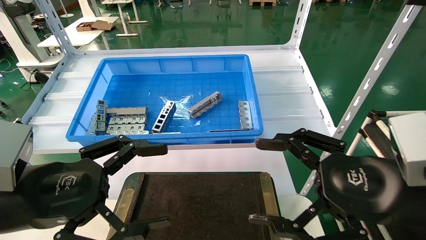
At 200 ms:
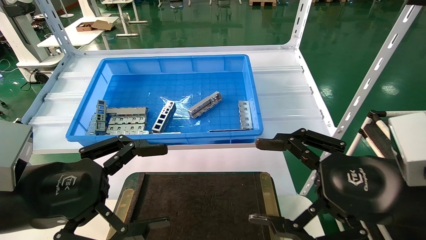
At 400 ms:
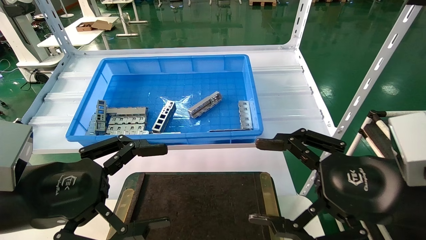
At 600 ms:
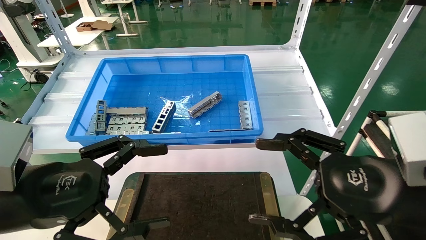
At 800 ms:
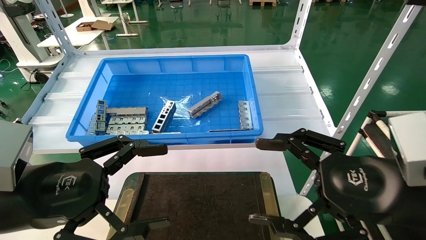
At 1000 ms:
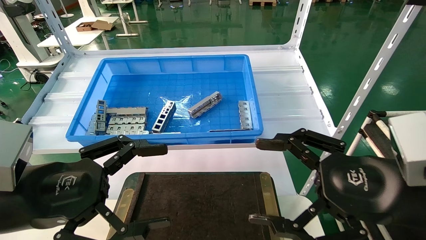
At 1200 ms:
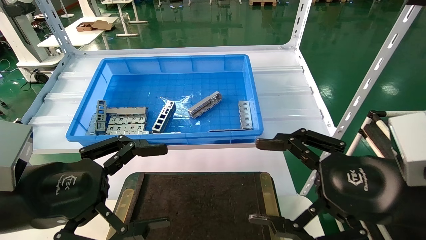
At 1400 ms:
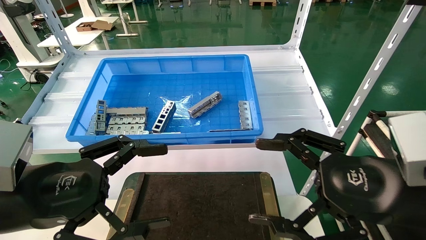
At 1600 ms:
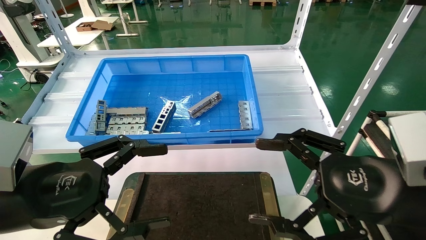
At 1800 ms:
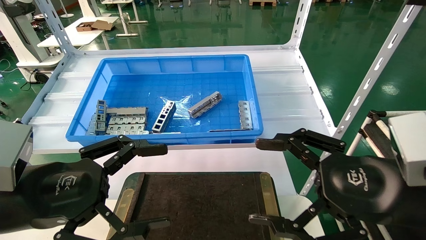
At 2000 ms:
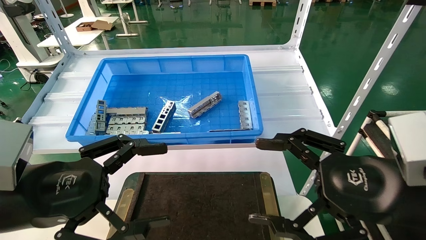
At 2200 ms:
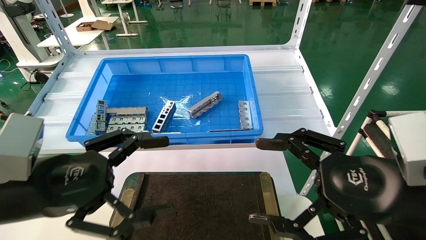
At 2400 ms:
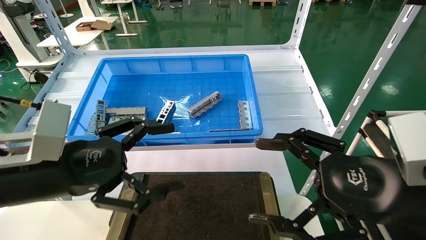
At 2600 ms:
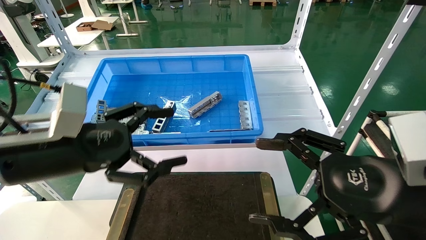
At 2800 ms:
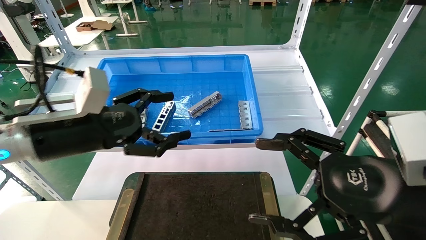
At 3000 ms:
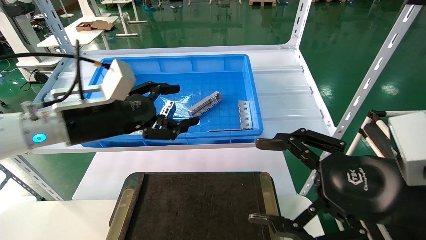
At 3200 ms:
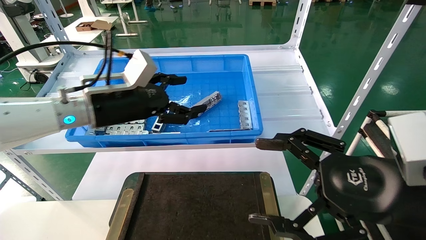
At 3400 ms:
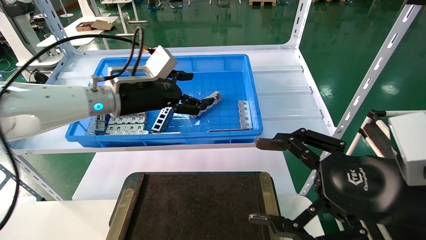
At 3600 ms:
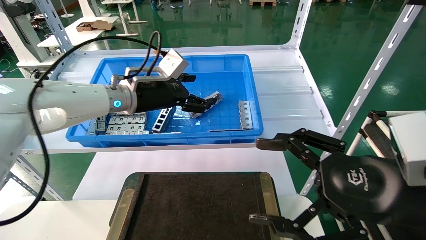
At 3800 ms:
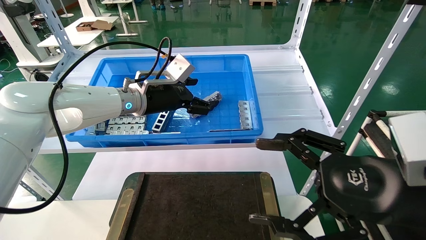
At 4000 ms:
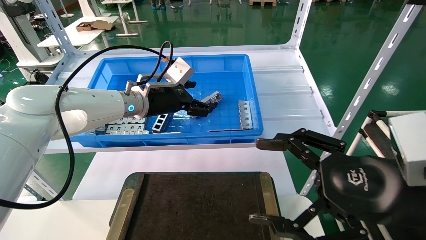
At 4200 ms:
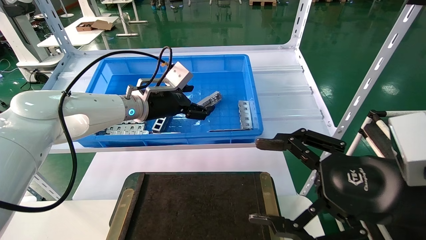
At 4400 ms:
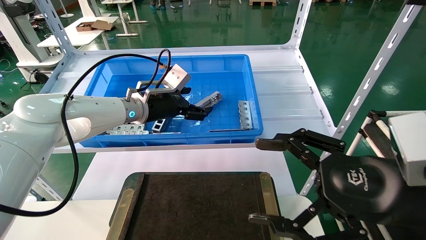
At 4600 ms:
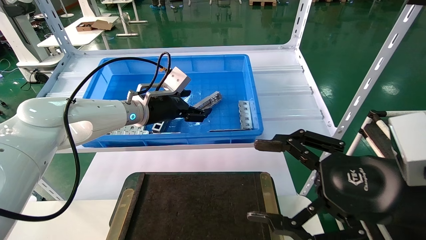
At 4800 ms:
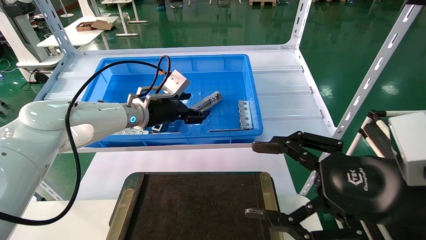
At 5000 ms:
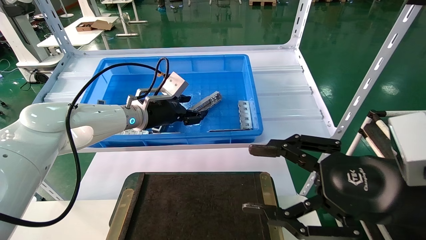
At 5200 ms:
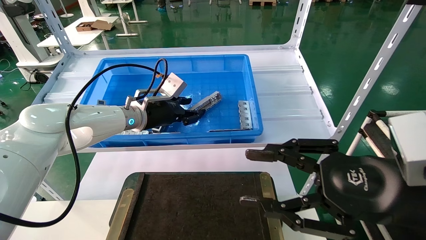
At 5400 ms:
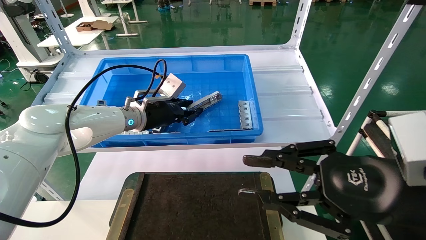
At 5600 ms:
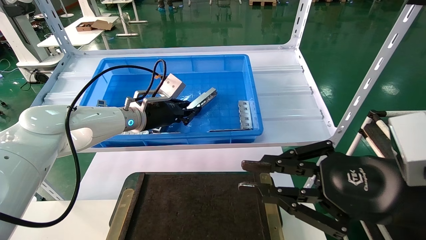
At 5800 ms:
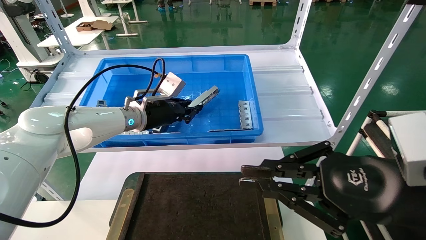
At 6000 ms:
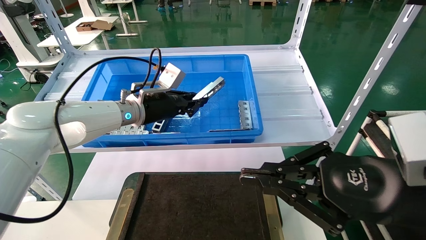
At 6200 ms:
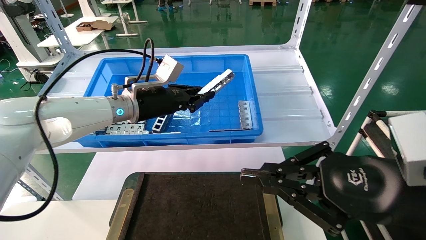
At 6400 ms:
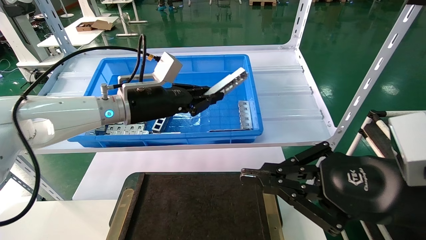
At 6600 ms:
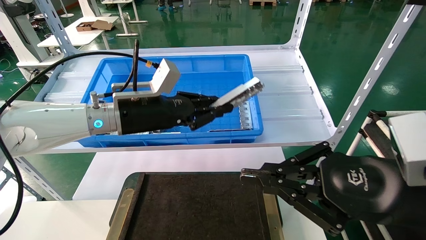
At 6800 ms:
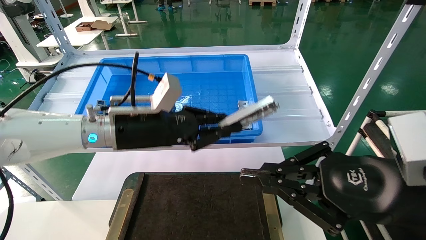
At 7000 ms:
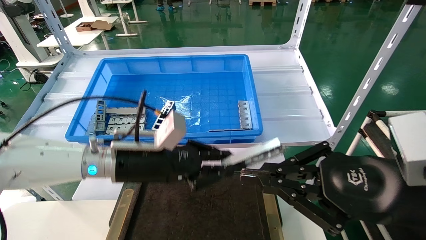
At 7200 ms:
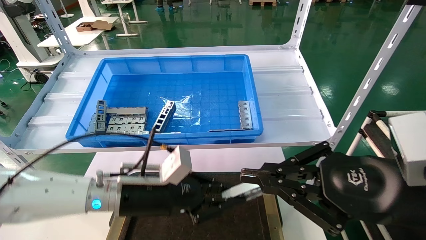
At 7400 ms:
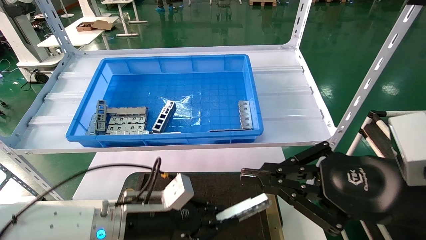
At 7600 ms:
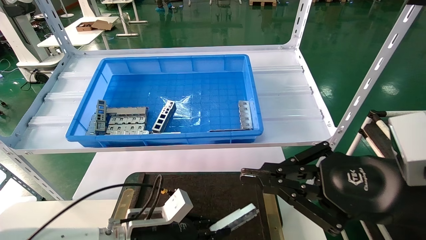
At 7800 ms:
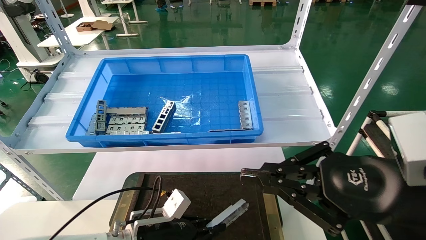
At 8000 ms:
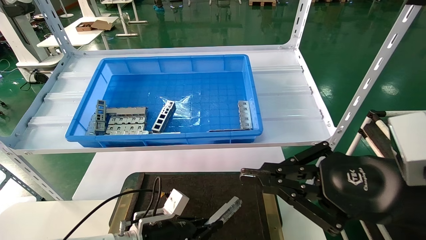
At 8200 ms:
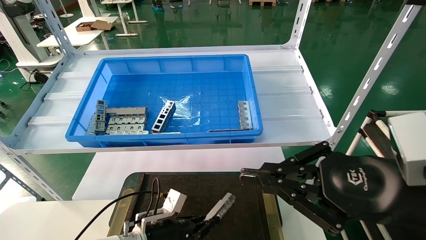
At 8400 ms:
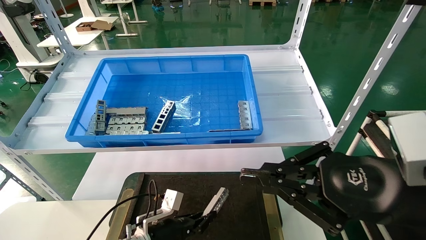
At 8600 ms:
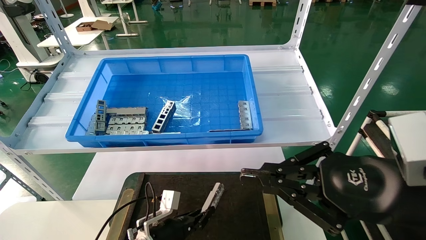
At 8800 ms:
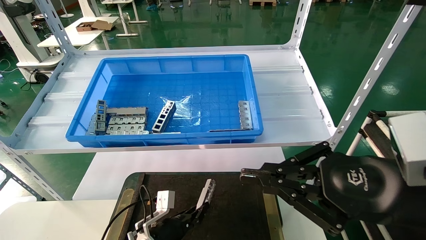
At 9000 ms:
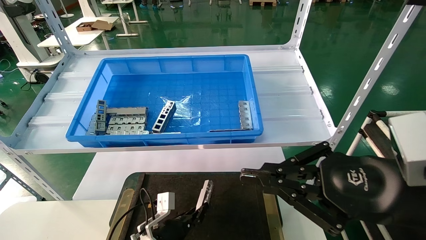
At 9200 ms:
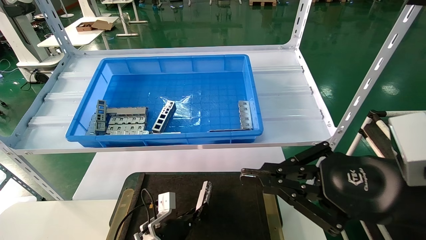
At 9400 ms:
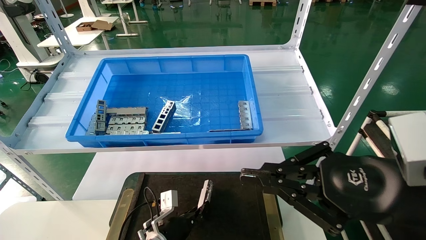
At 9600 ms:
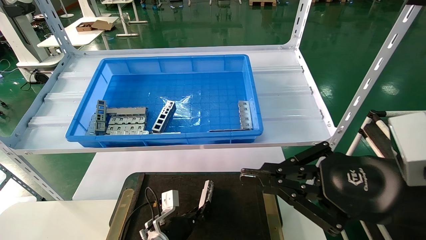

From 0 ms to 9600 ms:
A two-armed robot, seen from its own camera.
Task of the whole recording: Grasp the part with one hand and place it on the black container.
Step, from 2200 ms to 6000 ms: Pick up the front USB bracket from the feeding area.
From 0 ms to 1600 ms: Both grippers stay about where they are.
From 1600 ms to 3200 ms: The left gripper is displaced forward by some 20 cm.
From 3200 ms to 4800 ms: The left gripper travels forward by some 10 cm.
From 4800 ms to 6400 ms: The right gripper closes its fingers; the left gripper travels backward by roughly 5 cm, and closes up.
From 6400 ms to 8000 ms: The left gripper is displaced downward by roughly 30 cm.
From 8000 ms to 9600 ms: The left gripper is displaced downward by roughly 5 cm.

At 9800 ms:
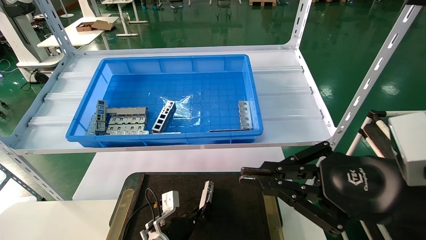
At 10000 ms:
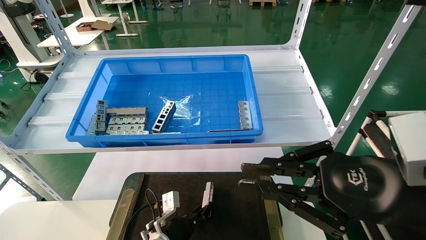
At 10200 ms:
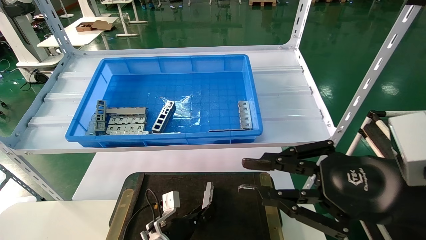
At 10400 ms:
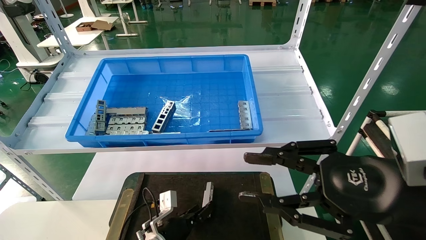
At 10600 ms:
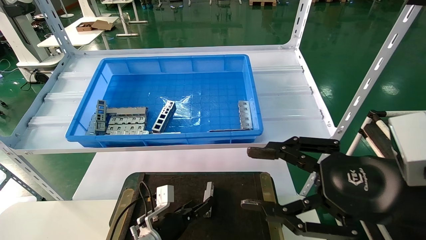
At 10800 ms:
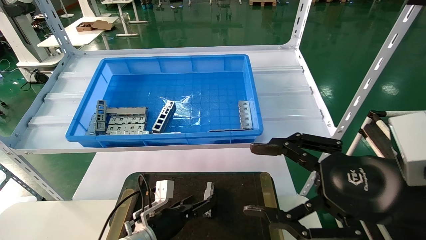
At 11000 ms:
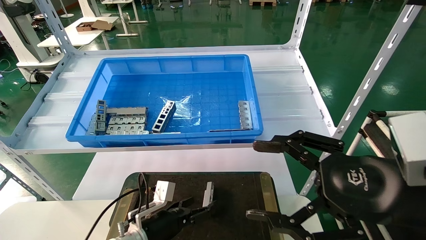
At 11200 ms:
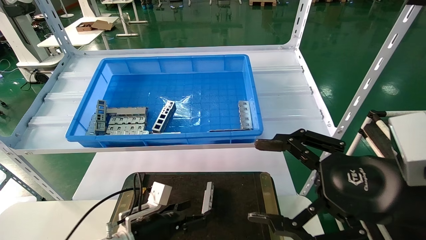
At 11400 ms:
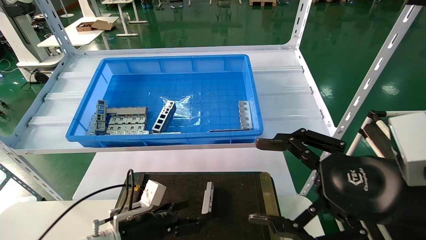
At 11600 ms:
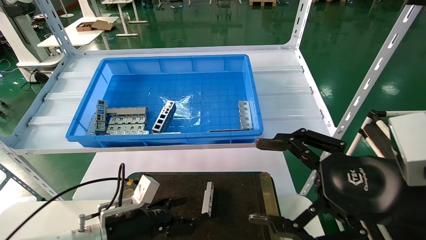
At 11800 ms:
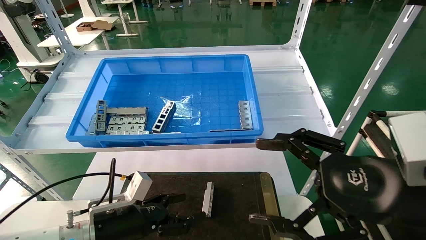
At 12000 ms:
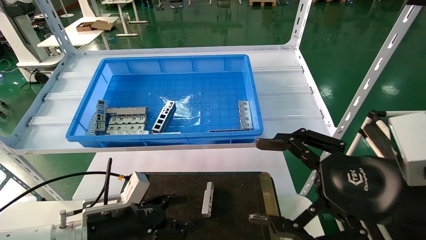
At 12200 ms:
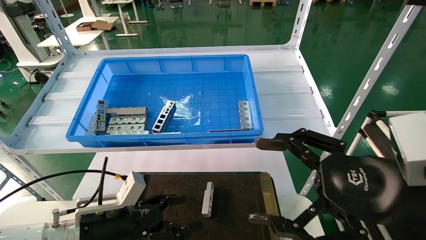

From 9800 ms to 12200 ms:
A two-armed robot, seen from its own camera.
Task of the whole recording: Grasp the part with one hand and place it on the black container.
From 9800 ms to 11000 ms: The right gripper opens its fingers. Meanwhile the left gripper is displaced upward by approximately 5 cm, and opens up.
From 11000 ms to 12200 ms: The left gripper goes some 15 cm upward, to the left and backward.
